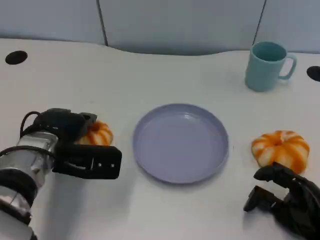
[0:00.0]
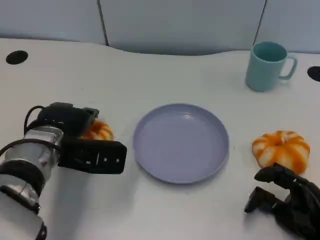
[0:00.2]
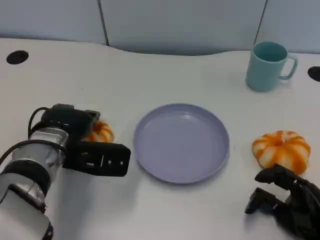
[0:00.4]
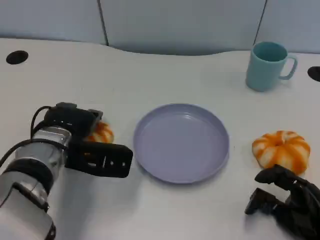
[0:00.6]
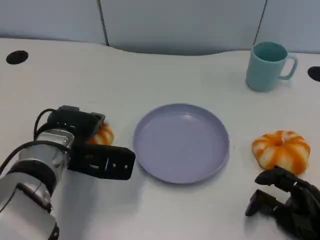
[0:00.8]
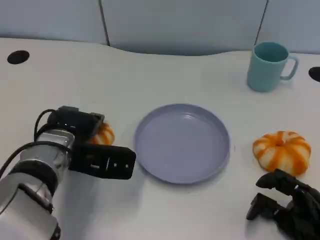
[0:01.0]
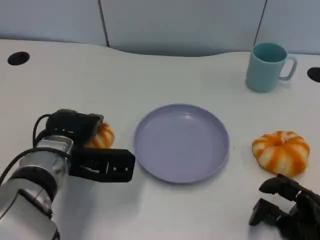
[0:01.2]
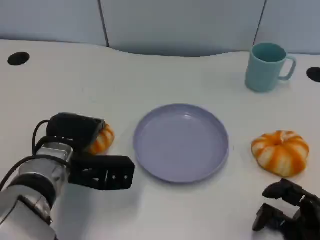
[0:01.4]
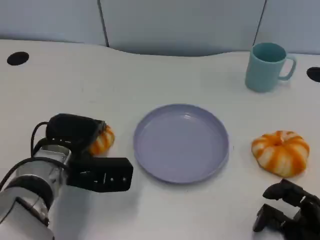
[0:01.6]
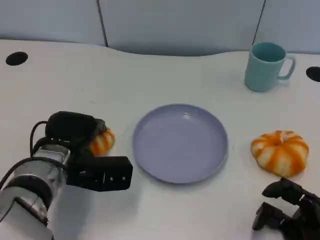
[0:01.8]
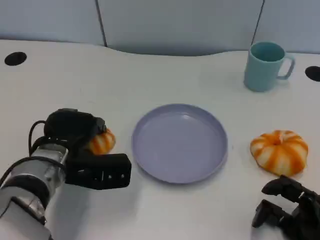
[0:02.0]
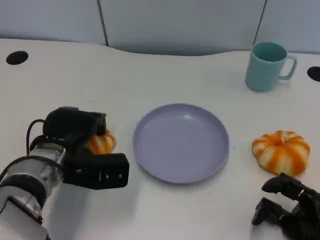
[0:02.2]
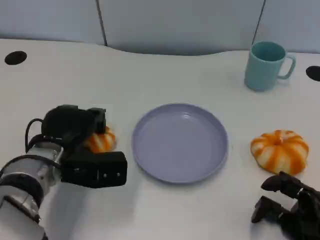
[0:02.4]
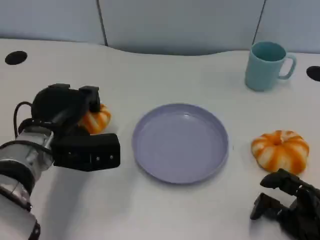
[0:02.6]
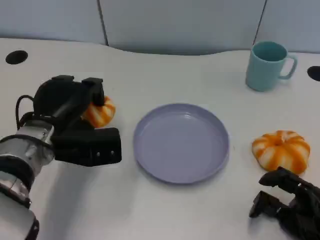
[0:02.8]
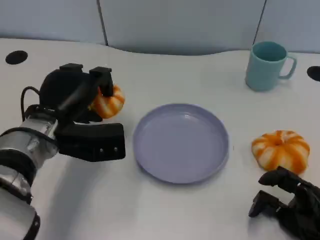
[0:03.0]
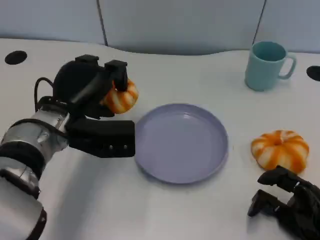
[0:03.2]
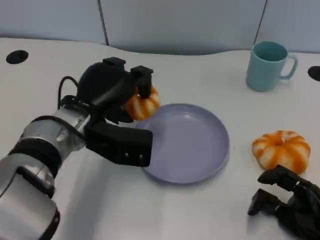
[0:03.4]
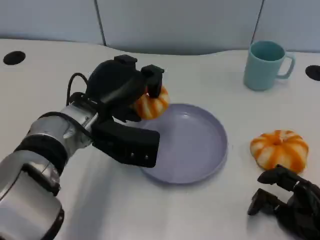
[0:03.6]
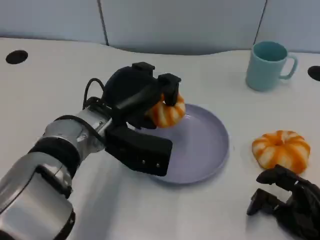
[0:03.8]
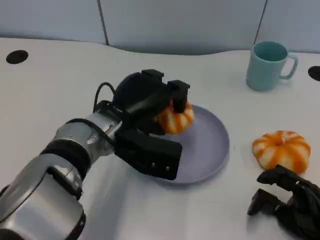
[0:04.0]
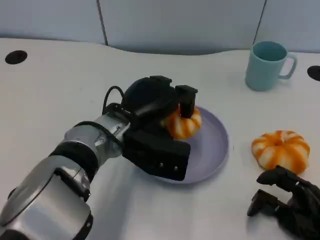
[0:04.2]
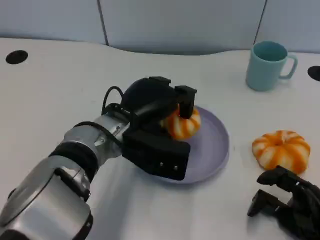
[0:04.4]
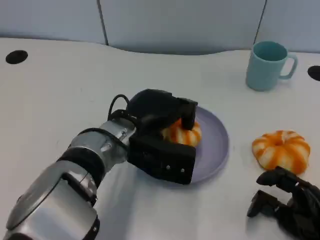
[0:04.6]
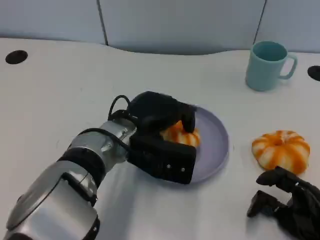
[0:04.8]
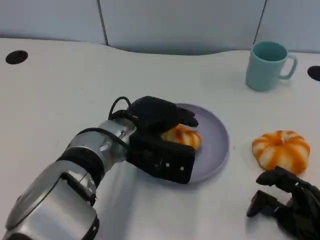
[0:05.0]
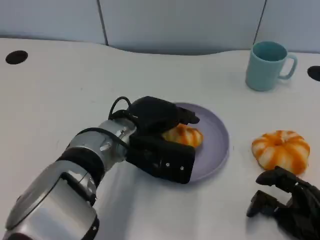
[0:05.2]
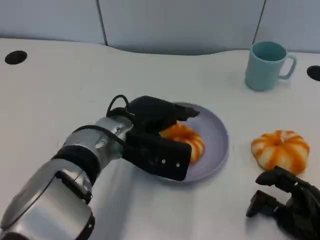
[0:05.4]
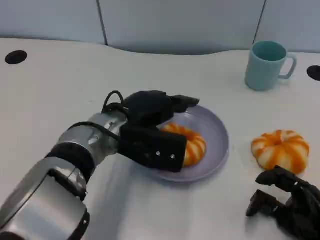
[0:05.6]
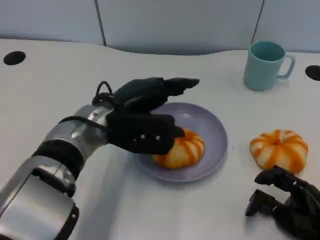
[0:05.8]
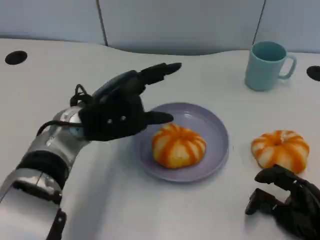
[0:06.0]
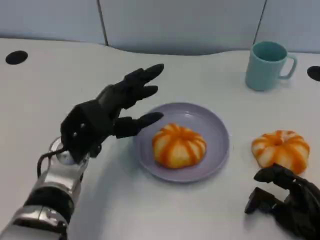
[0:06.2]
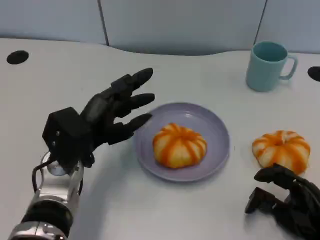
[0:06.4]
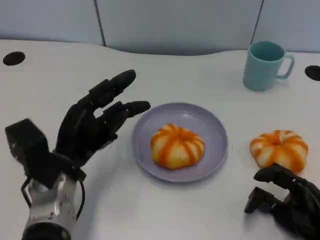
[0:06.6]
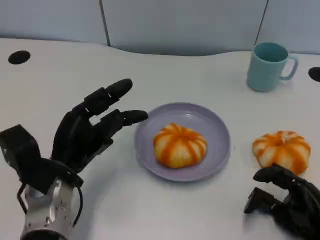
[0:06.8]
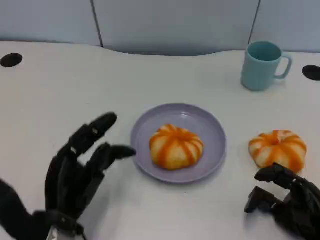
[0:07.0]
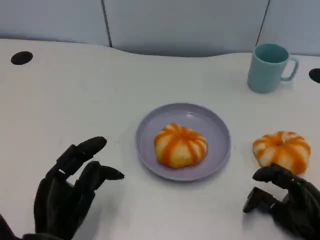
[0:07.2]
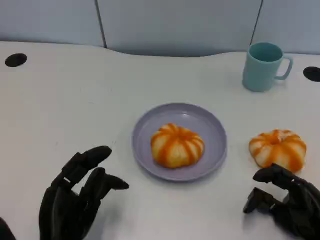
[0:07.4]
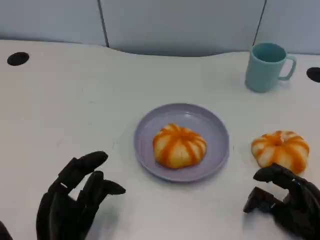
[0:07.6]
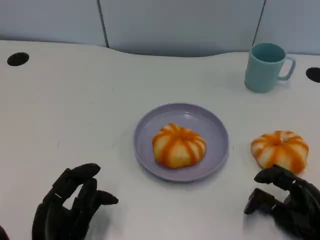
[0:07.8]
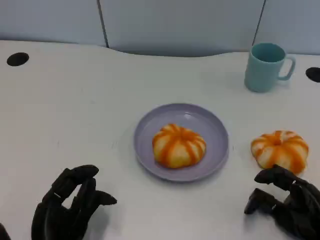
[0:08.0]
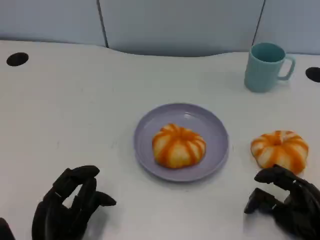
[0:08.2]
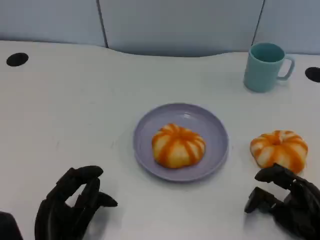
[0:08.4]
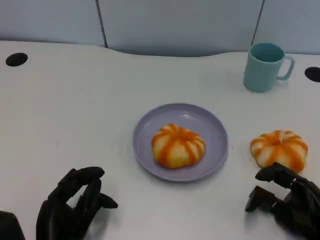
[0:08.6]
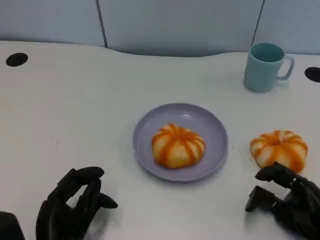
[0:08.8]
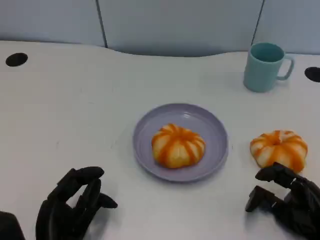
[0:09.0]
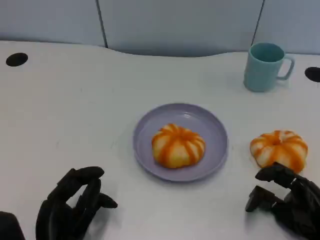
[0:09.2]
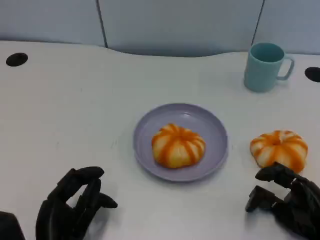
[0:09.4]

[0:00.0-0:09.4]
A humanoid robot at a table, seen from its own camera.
Task of the whole recording: Grasp the bread from the table and place it into the plate.
0:00.0 to 0:01.6: There are only small adjustments of the hands.
0:01.6 to 0:03.2: The left hand travels upward by roughly 5 cm.
0:03.2 to 0:04.8: The left hand goes some 10 cm to the right.
0:04.8 to 0:06.2: The left hand heads to the left, covering roughly 10 cm.
0:06.2 to 0:07.8: The left hand travels backward and downward by about 15 cm.
0:07.8 to 0:09.4: There are only small adjustments of the hands.

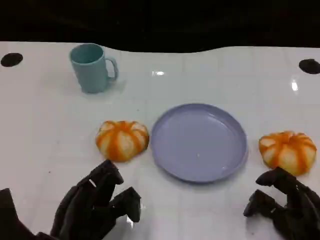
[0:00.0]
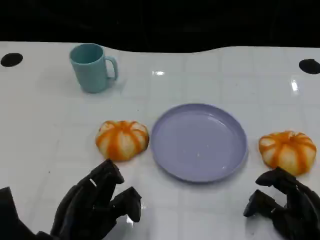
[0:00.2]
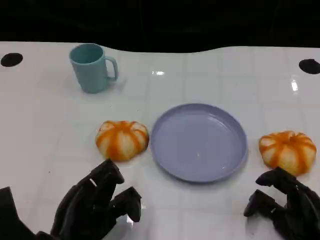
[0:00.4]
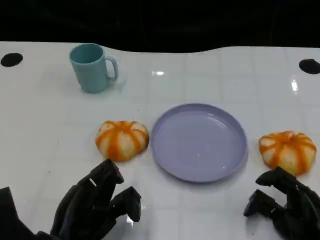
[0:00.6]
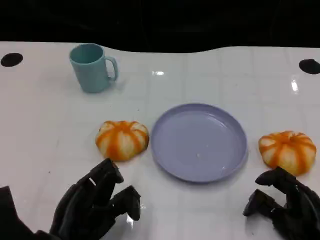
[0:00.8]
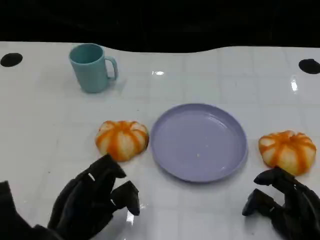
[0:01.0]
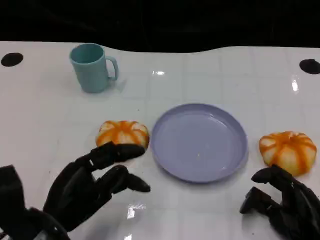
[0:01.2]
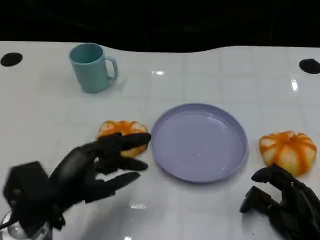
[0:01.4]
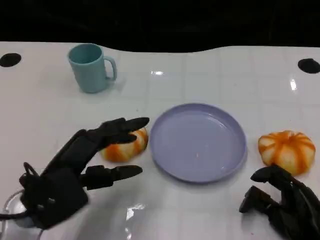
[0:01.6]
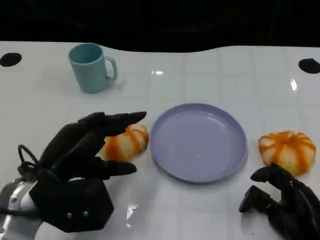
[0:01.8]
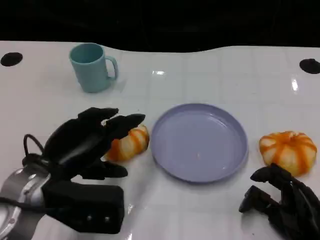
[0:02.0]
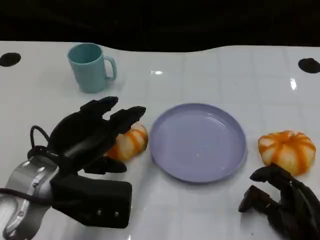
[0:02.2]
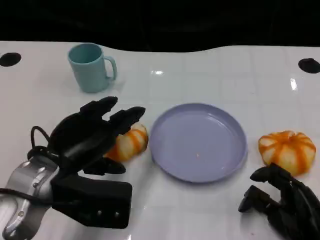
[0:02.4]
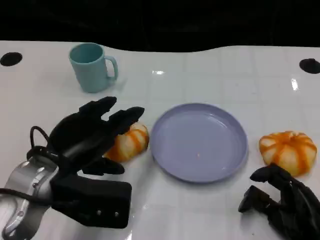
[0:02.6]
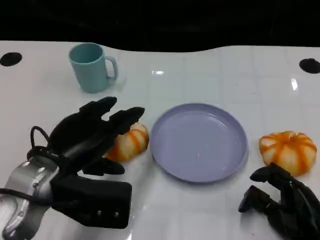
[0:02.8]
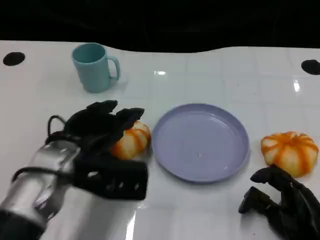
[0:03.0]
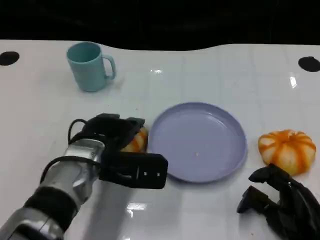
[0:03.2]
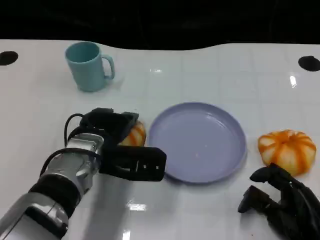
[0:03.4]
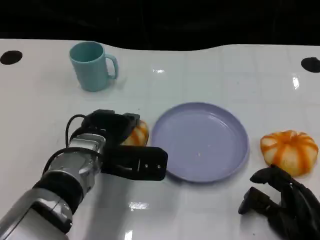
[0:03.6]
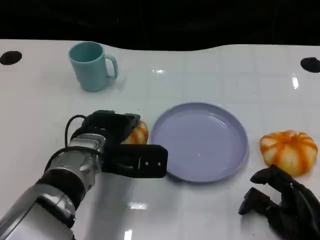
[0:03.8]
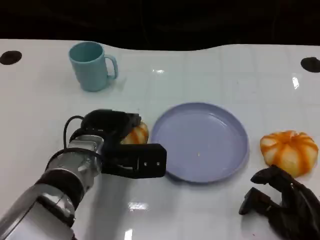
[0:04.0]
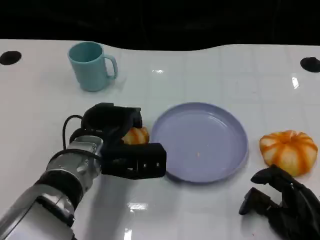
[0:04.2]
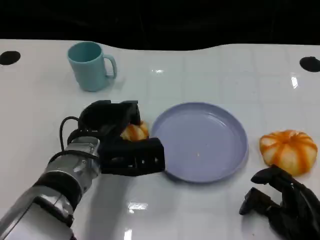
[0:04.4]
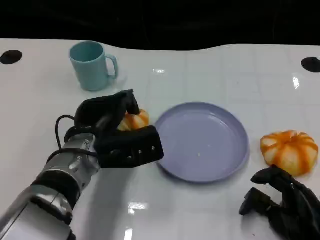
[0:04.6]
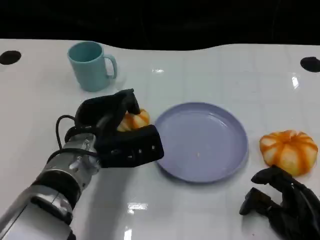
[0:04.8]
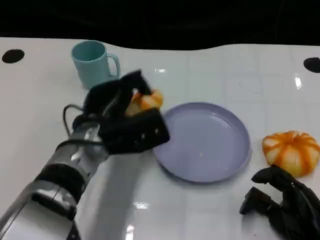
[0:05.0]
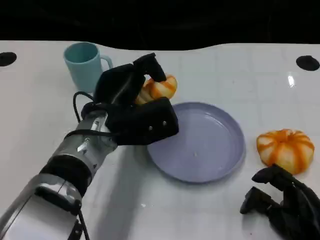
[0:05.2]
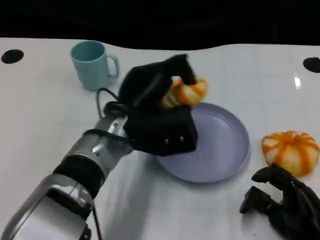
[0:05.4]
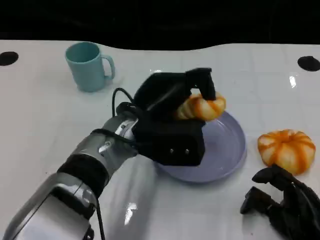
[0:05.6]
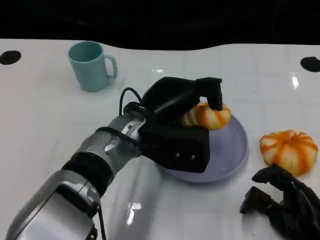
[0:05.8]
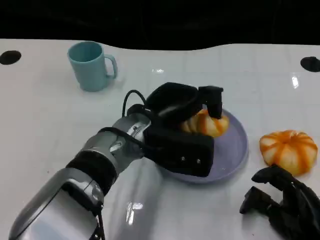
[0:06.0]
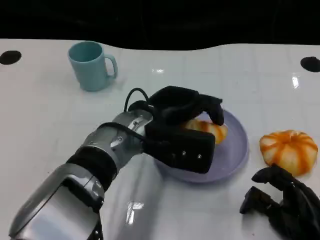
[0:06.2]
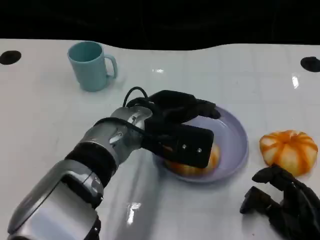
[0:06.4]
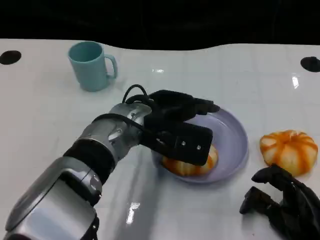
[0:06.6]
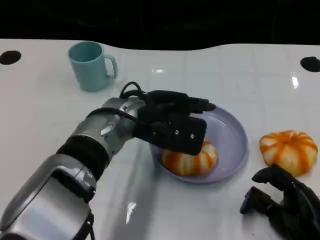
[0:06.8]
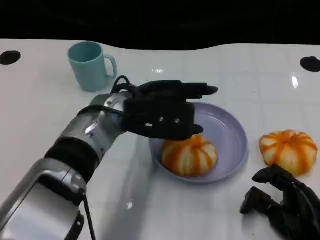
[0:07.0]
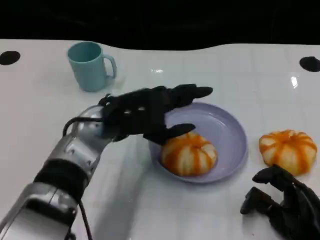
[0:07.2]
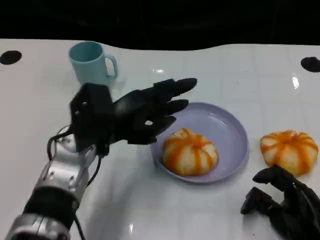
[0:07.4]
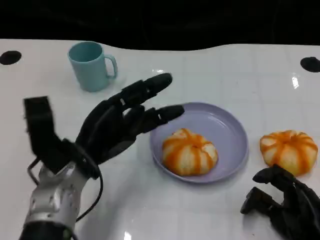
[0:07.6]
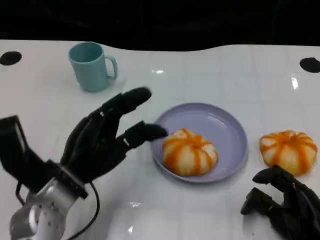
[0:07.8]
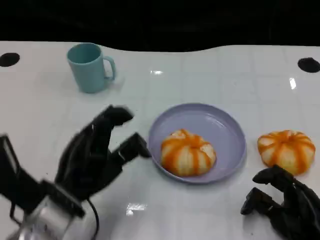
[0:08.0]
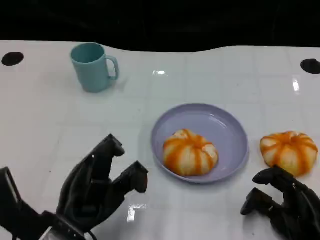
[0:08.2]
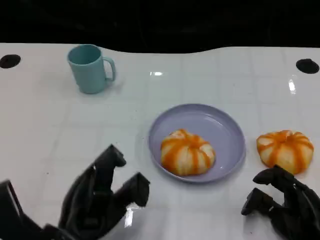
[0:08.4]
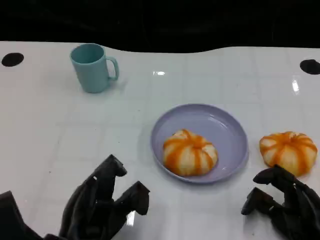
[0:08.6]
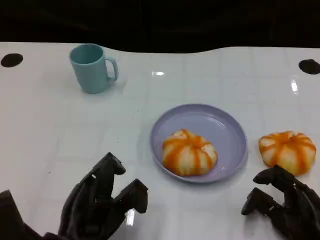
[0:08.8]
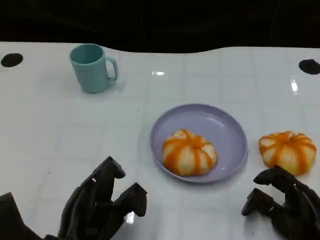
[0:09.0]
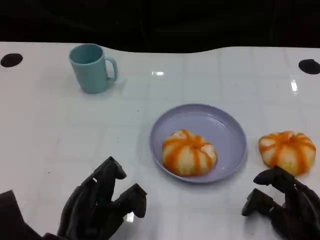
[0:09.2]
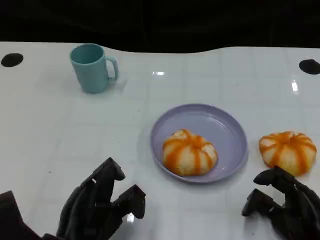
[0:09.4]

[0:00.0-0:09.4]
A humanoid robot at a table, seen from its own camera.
Task of the whole recording: Grasp the bread from the table and place it into the plate.
0:00.0 to 0:01.6: The left hand is displaced upward by some 5 cm.
0:01.6 to 0:03.2: The left hand is displaced forward and to the right by roughly 10 cm.
0:04.8 to 0:06.2: The left hand shifts about 10 cm to the right and upward.
0:06.2 to 0:07.8: The left hand heads to the left, backward and downward, covering some 15 cm.
0:07.8 to 0:09.4: The left hand shifts roughly 10 cm backward.

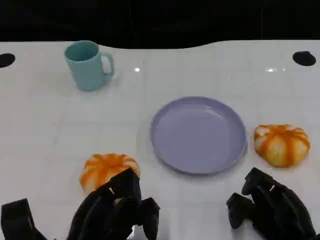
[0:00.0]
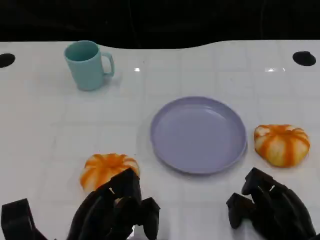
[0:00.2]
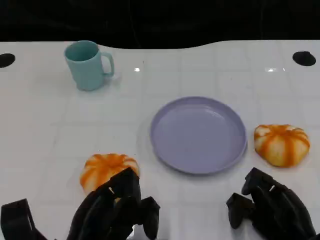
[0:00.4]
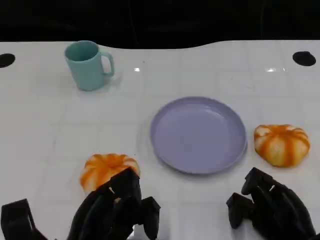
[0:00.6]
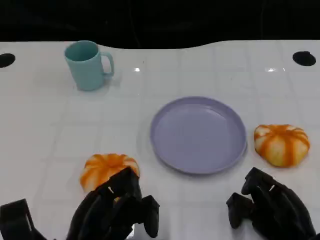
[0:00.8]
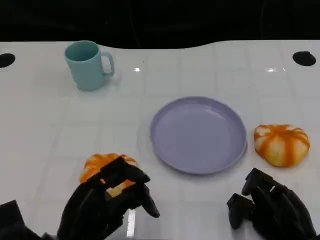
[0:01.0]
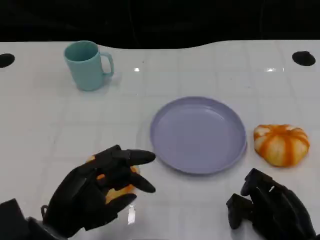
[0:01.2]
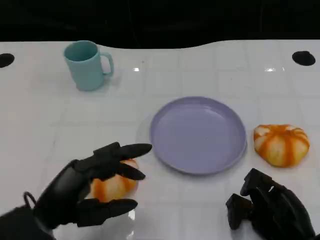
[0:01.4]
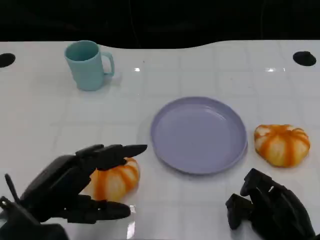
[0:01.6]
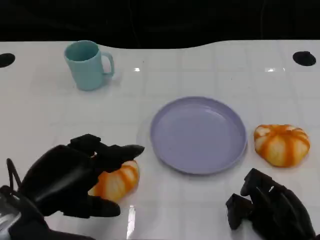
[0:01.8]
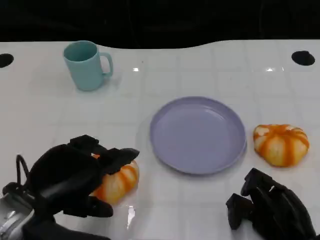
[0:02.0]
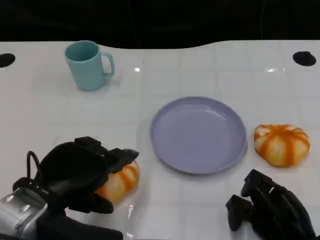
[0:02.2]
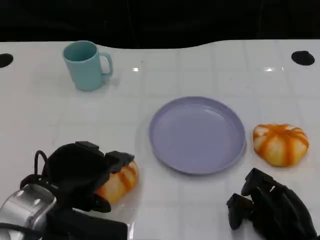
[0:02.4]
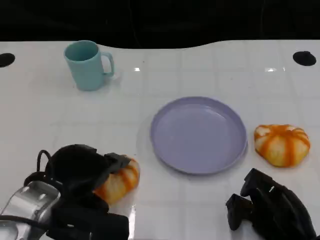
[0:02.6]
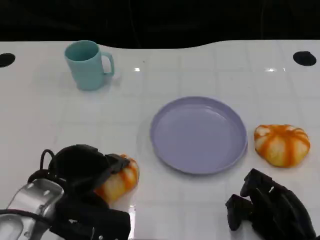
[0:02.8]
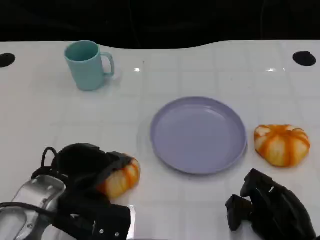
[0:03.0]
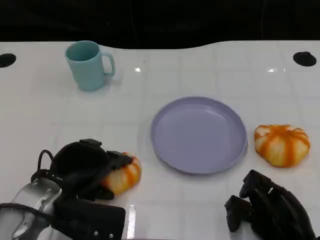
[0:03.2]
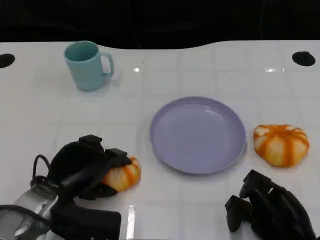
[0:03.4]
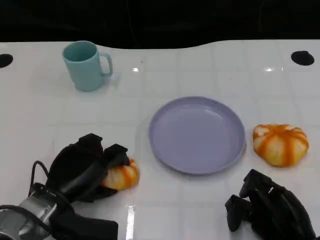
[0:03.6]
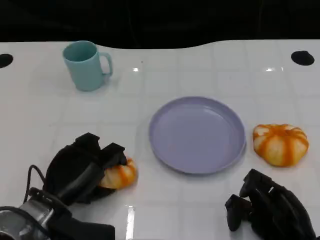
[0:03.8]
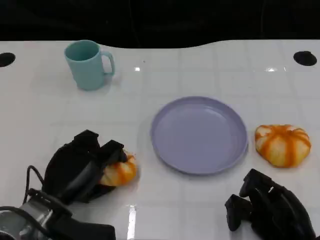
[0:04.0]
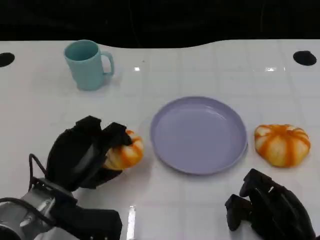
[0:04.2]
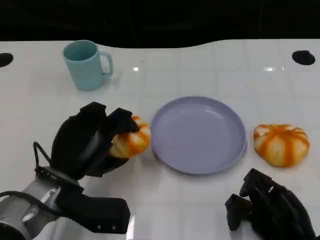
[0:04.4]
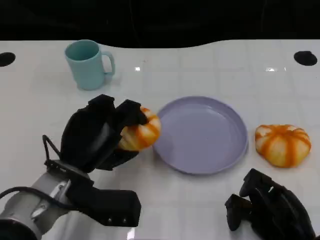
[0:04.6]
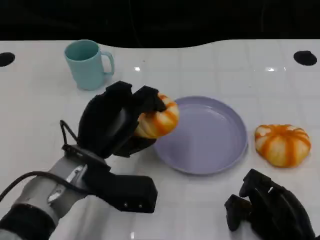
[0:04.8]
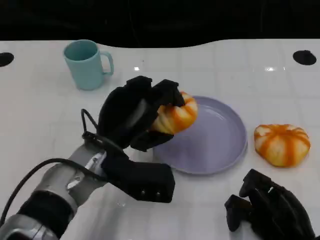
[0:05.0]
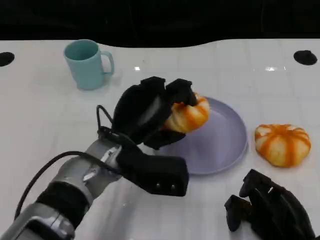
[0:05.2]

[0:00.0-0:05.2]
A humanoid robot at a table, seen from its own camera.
Task of the whole recording: Grasp the bread from the table and place it into the plate.
0:00.0 to 0:01.8: The left hand heads upward, covering approximately 10 cm.
0:01.8 to 0:03.4: The left hand shifts about 10 cm downward and forward.
0:03.4 to 0:05.2: The left hand shifts approximately 10 cm to the right and upward.
